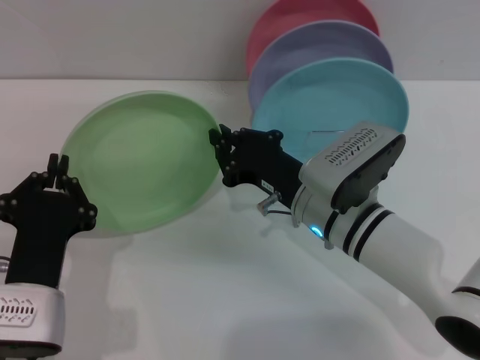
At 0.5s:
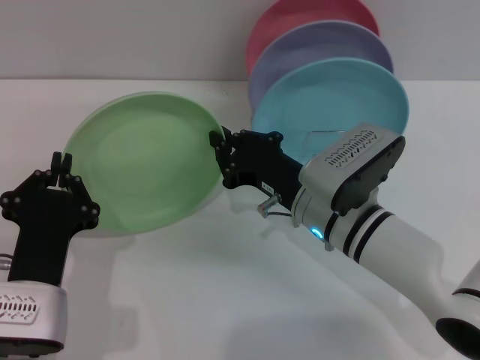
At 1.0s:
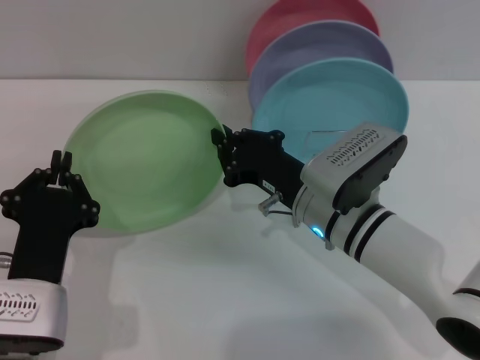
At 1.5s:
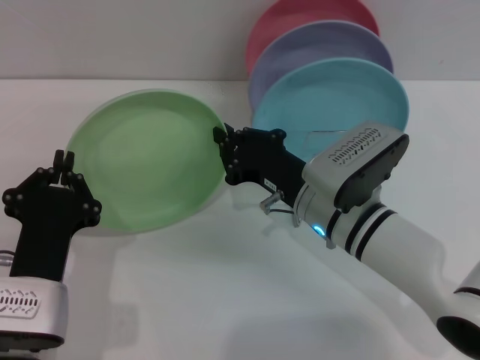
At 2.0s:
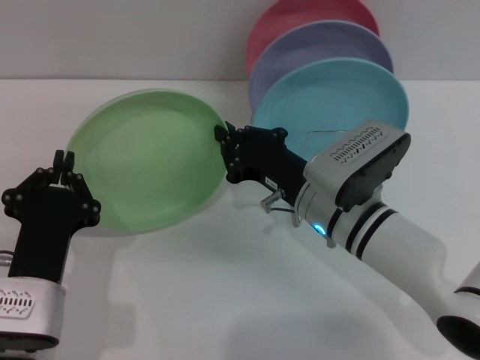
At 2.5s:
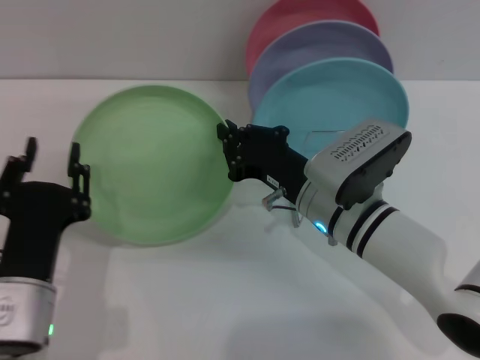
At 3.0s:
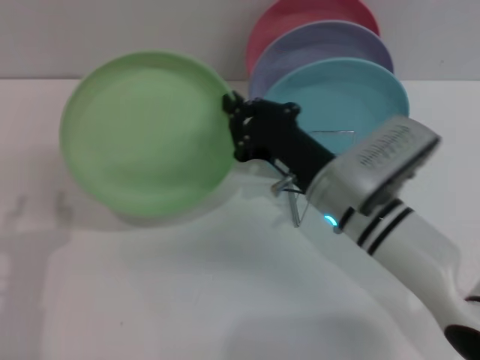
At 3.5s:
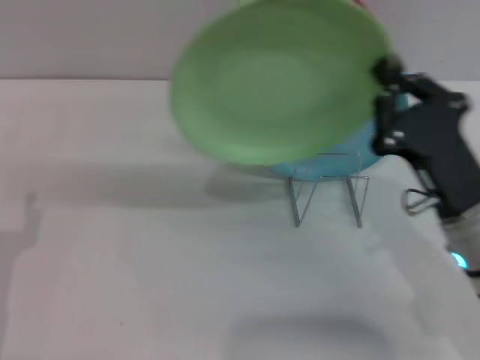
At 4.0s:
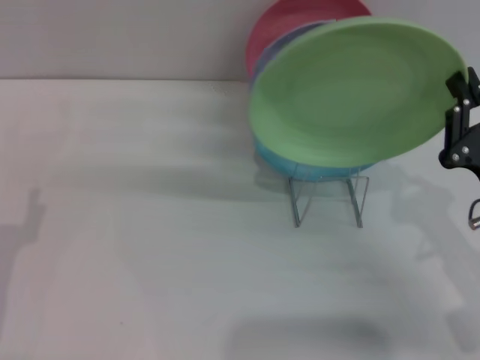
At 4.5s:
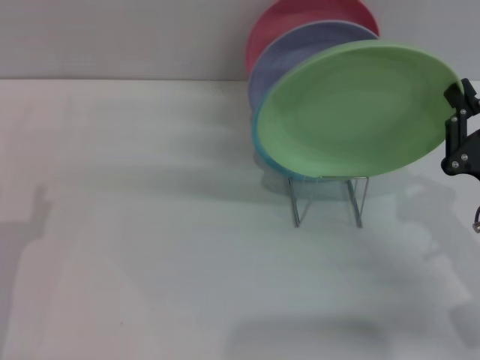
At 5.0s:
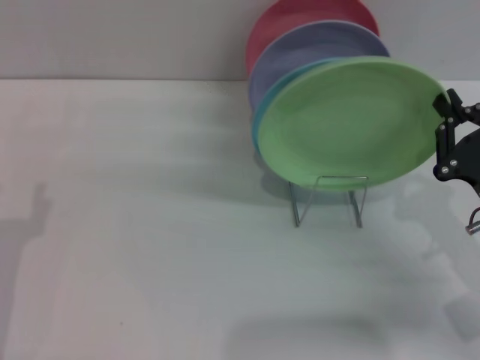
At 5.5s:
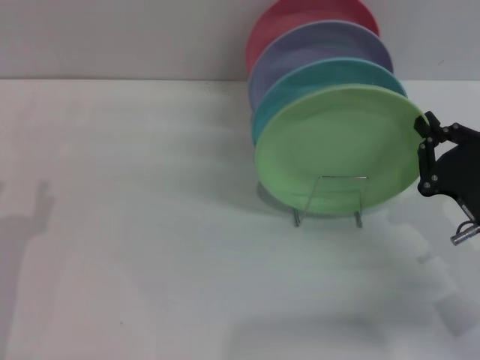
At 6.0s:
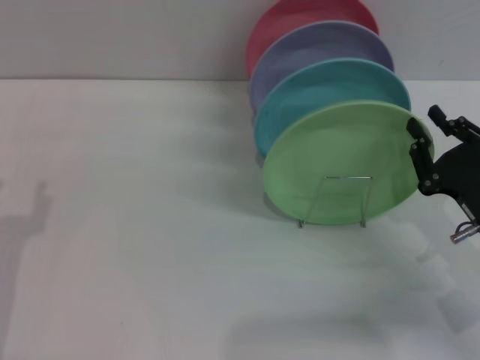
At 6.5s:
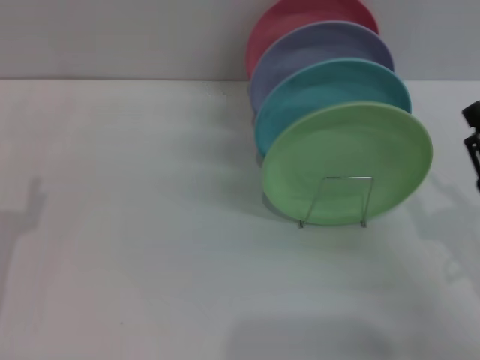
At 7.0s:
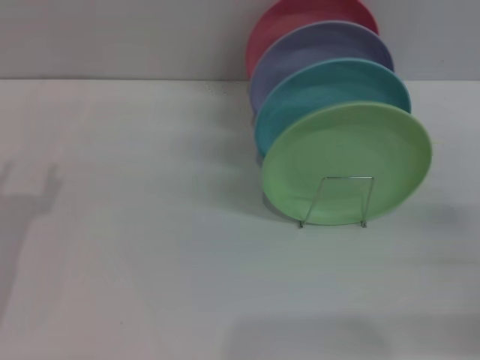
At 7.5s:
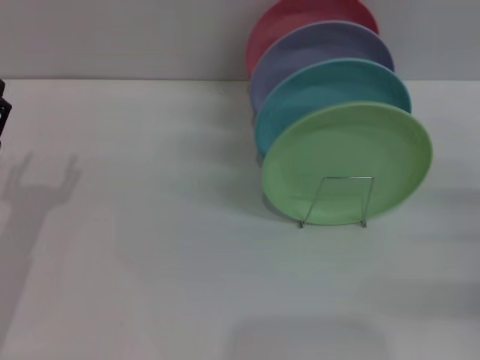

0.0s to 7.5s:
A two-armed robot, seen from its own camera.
Task of the whole recording: Grip the plate with one hand, pass it to the other, then set it on the shelf.
Step, 0.0s to 2.5s: Pass the plate from the left gripper to the right gripper.
Step, 3.0s to 6.0s: Place the plate on the shelf with the right gripper.
0.0s to 2.0s: Both grippers stay put.
2.0s to 4.0s: The right gripper moves to the right and backward, roughly 20 cm. The left gripper shifts roughly 10 cm to the left, and opens.
4.0s to 5.5s: There are only small adjustments of the grippers.
5.5s to 7.5s: The right gripper is displaced to the right by roughly 10 cm, and opens. Meanwhile the left gripper is displaced forward by approximately 5 cm.
